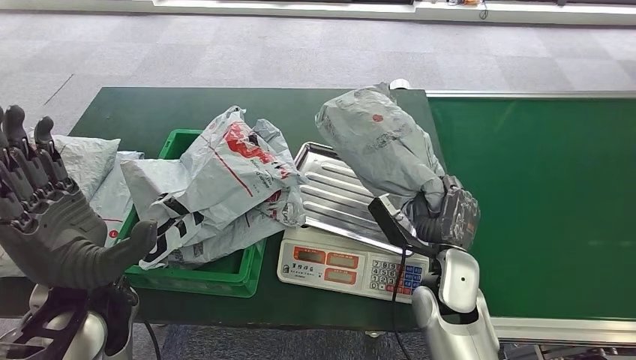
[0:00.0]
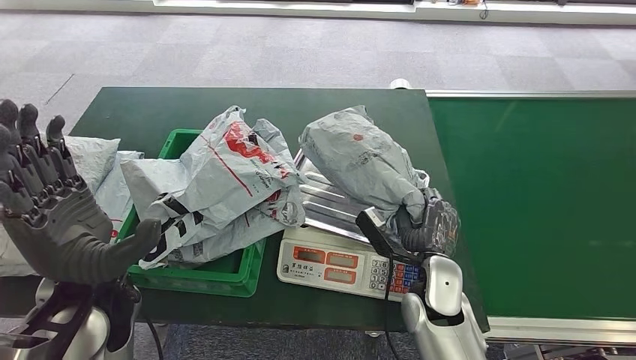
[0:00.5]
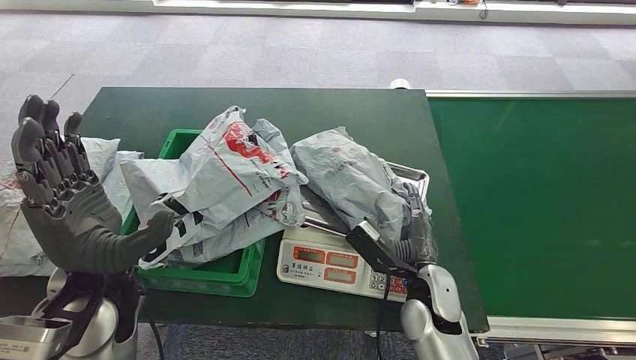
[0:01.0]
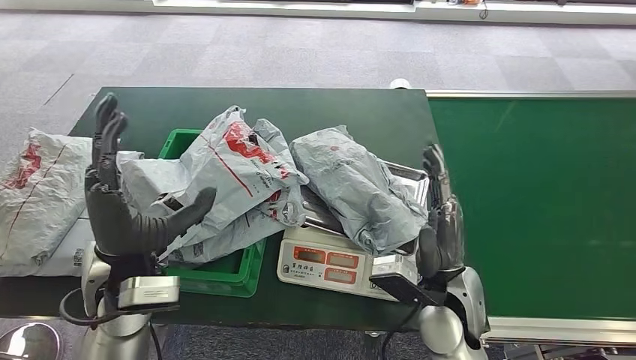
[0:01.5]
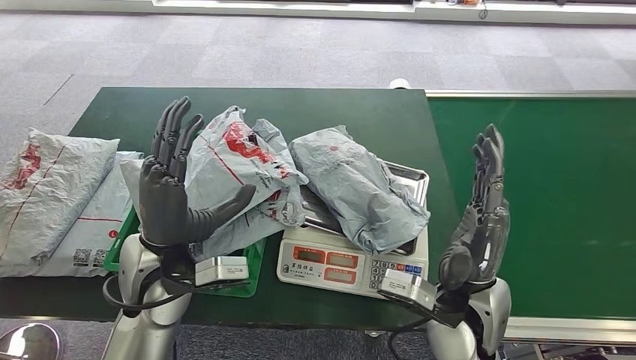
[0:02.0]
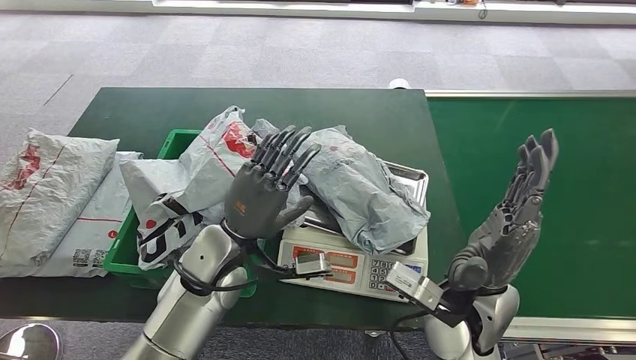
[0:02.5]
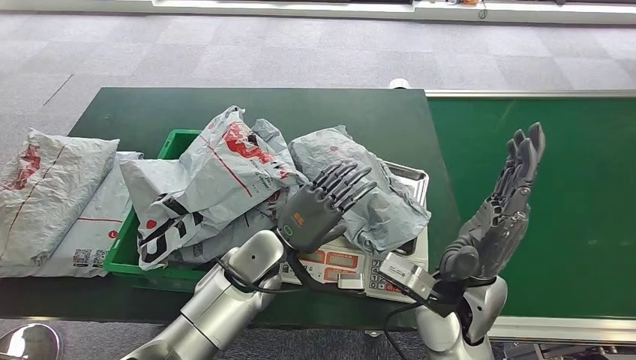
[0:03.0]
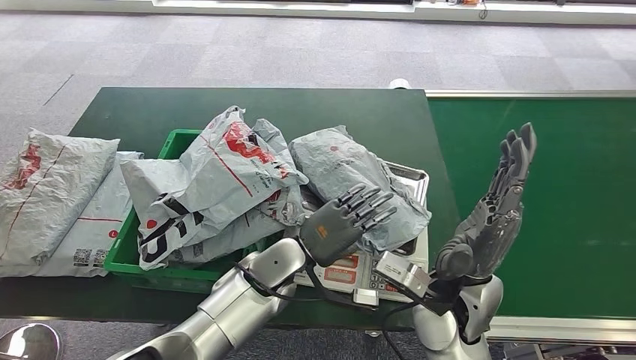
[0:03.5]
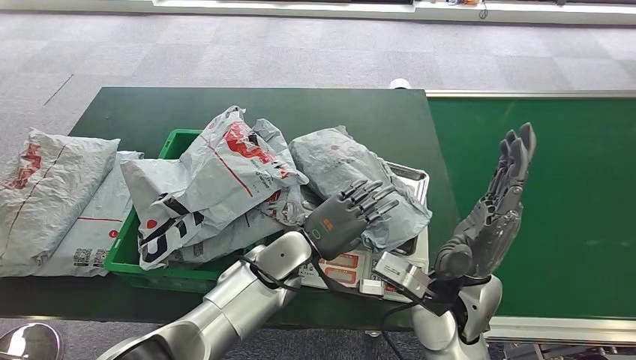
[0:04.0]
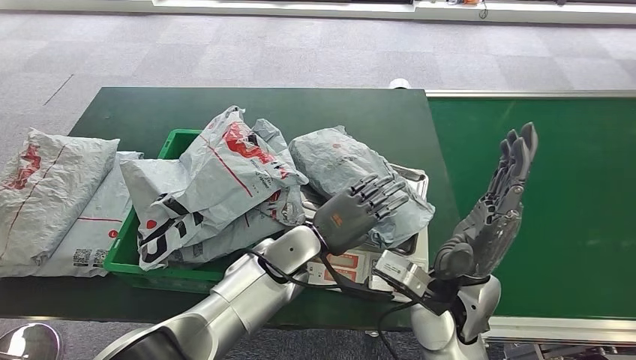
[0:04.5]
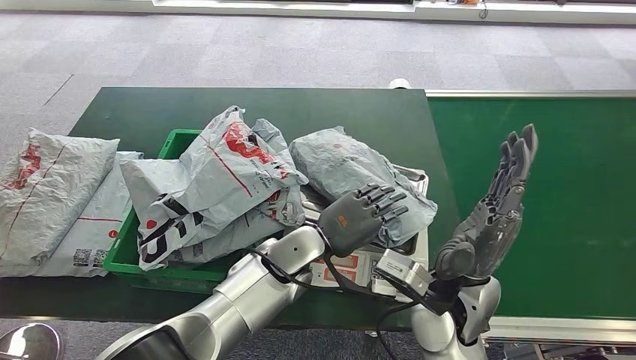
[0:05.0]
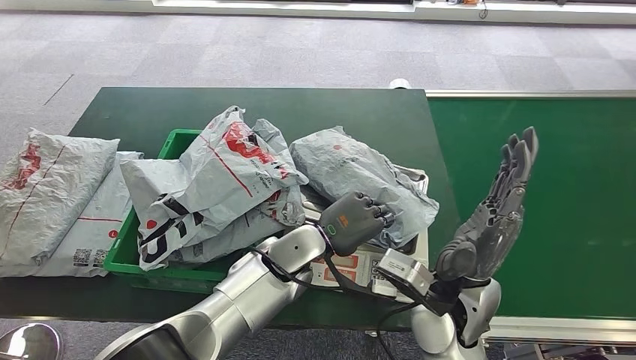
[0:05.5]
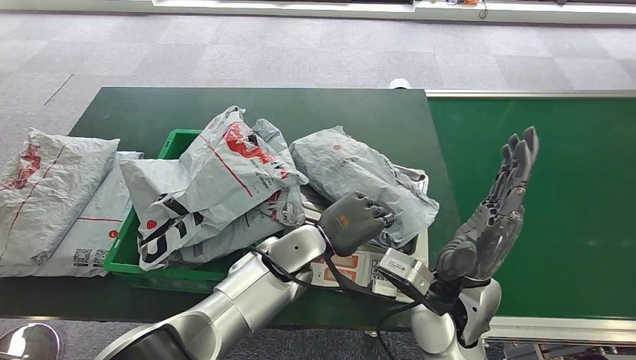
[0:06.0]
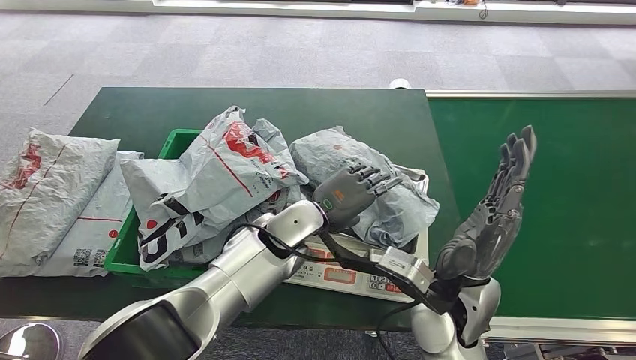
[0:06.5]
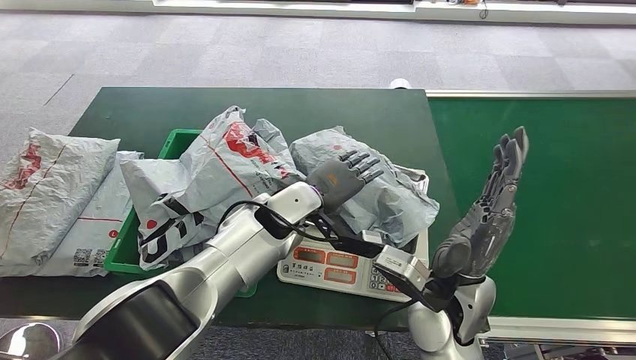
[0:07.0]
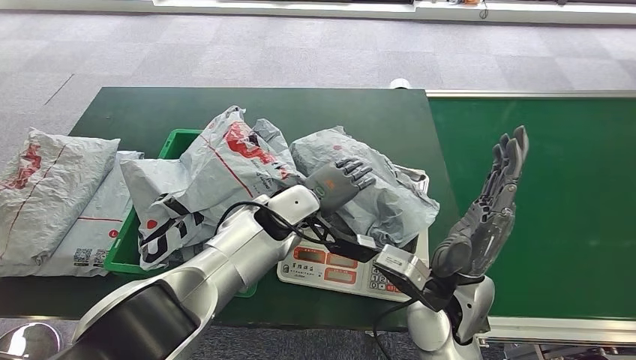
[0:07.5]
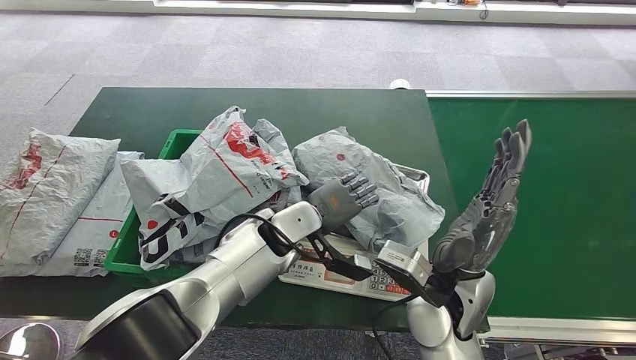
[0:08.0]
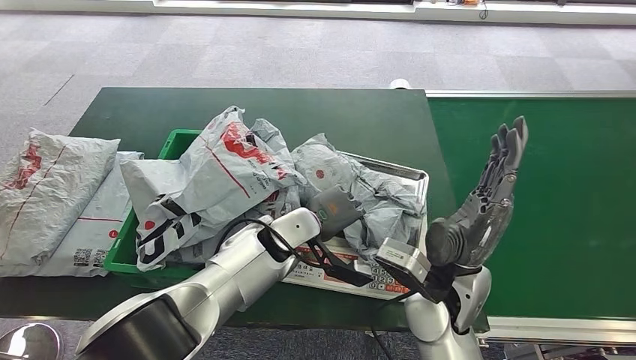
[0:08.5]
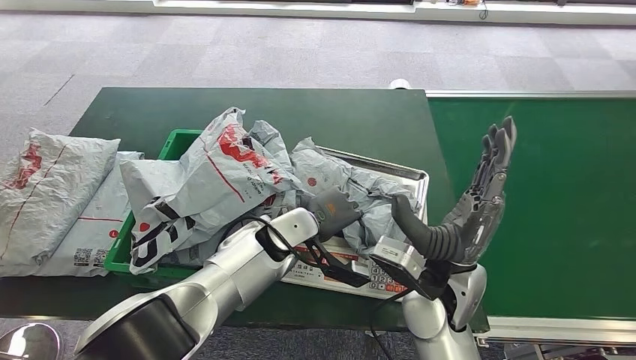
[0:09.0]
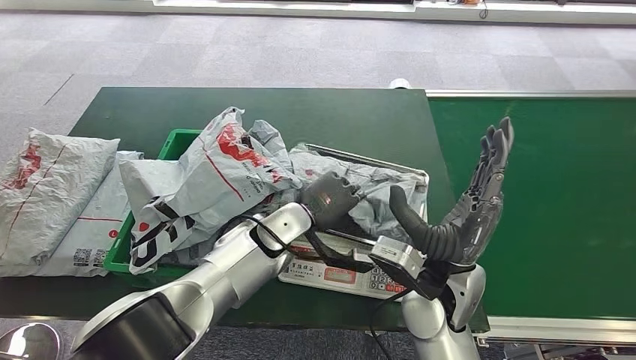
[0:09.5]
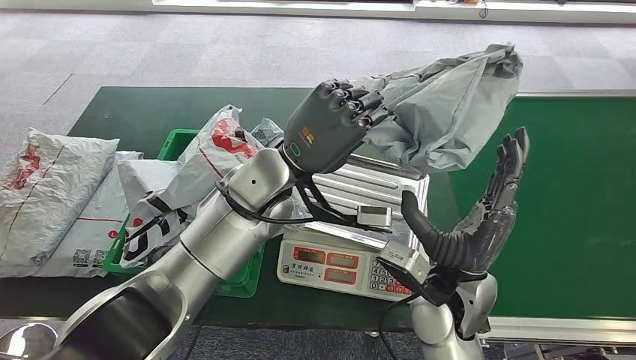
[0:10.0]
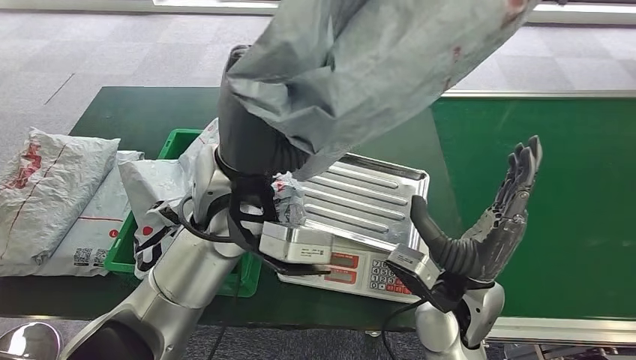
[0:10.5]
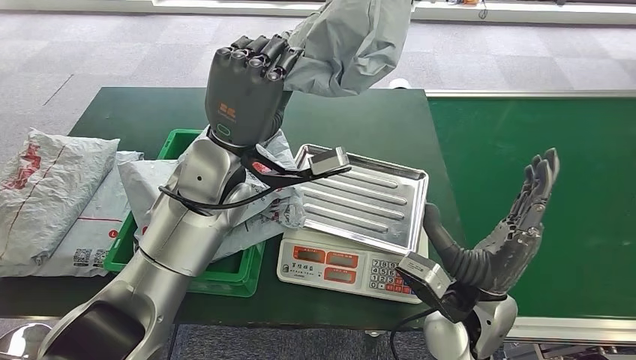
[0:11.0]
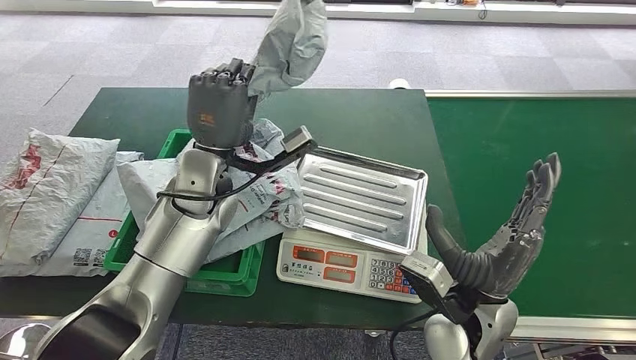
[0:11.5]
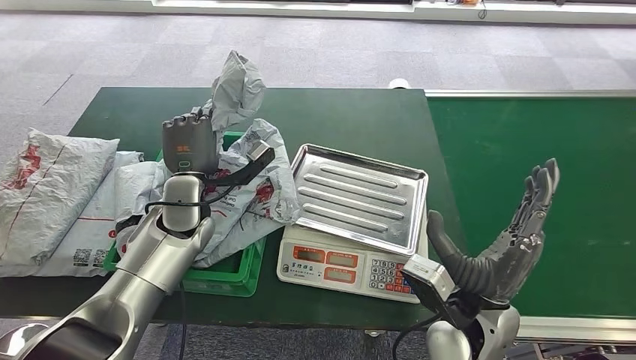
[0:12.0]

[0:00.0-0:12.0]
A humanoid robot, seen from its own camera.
Step, 0:00.0 to 0:01.5: Place the parcel onto the inbound machine.
Step, 0:02.0 to 0:10.0: Pick up the parcel from the inbound machine.
Step, 0:11.0 to 0:12.0: Place the parcel into the delivery box.
0:02.0 to 0:04.0: The left hand goes roughly 15 cm to the right and downward.
0:04.0 to 0:06.0: The hands move only a little.
